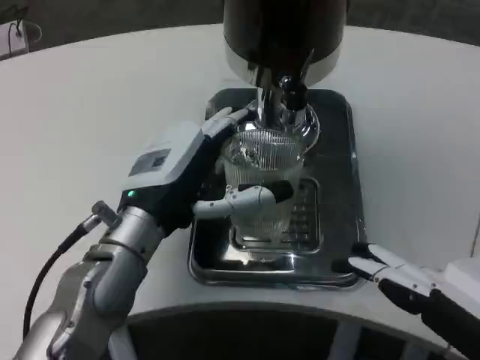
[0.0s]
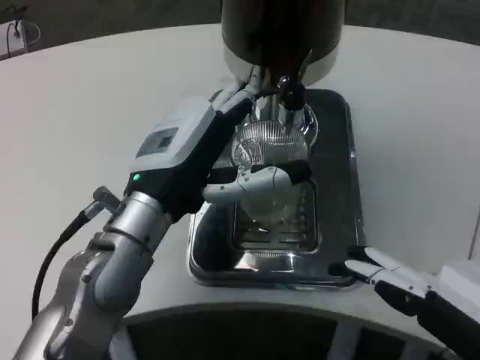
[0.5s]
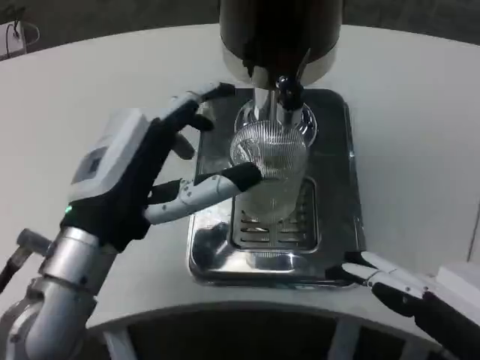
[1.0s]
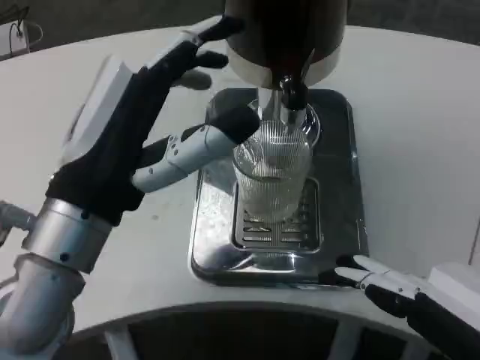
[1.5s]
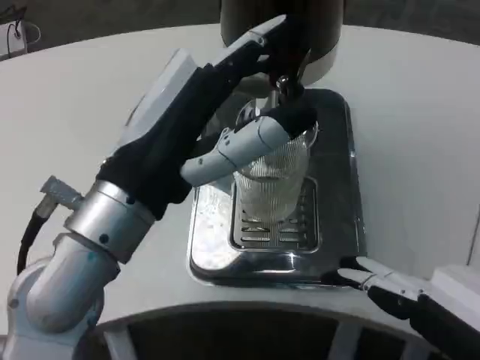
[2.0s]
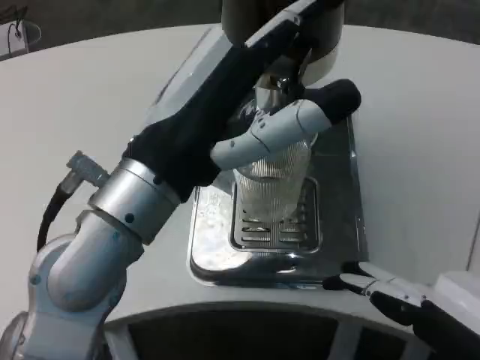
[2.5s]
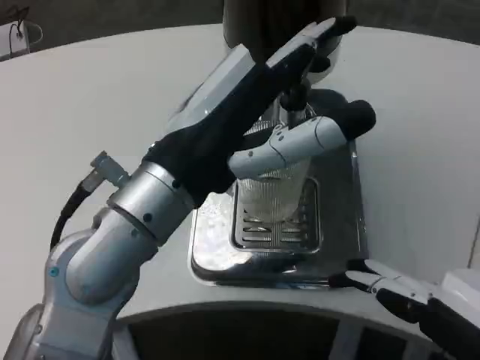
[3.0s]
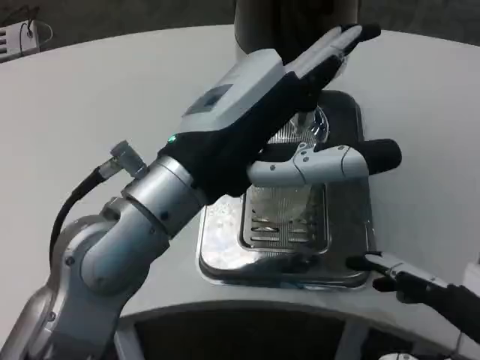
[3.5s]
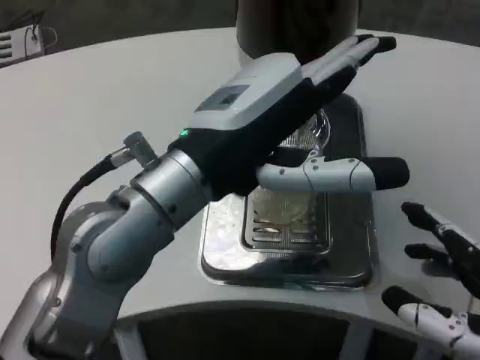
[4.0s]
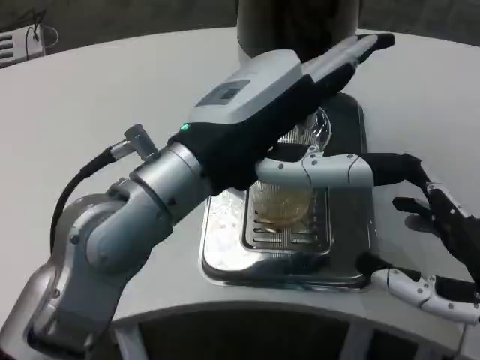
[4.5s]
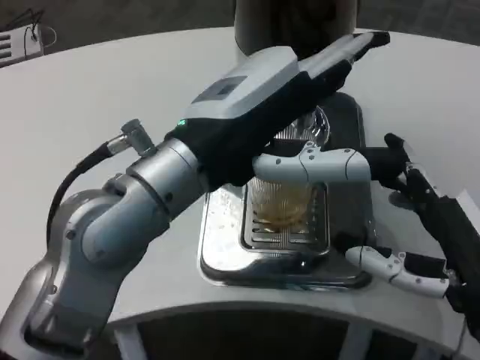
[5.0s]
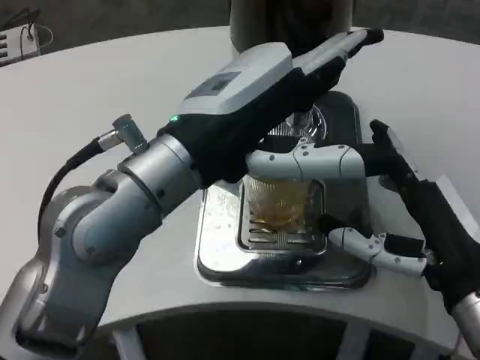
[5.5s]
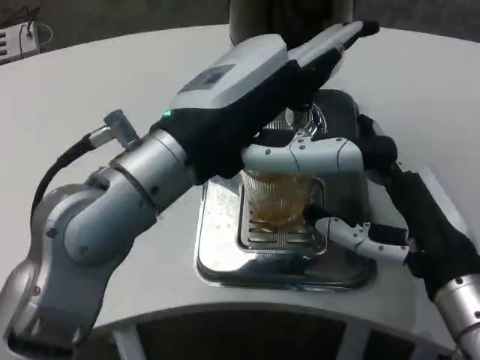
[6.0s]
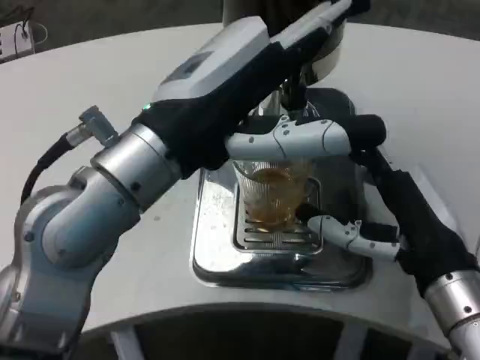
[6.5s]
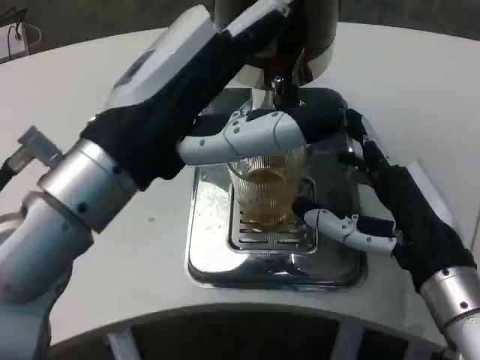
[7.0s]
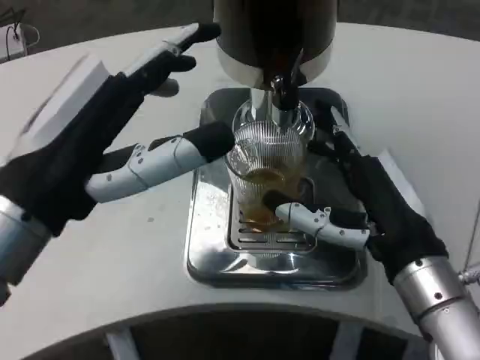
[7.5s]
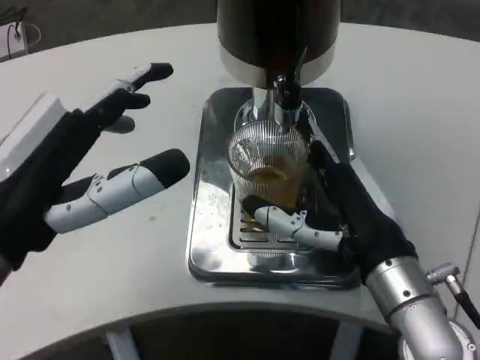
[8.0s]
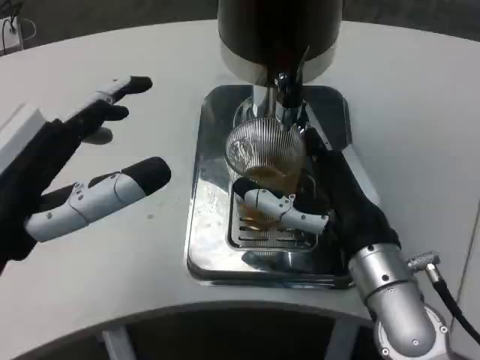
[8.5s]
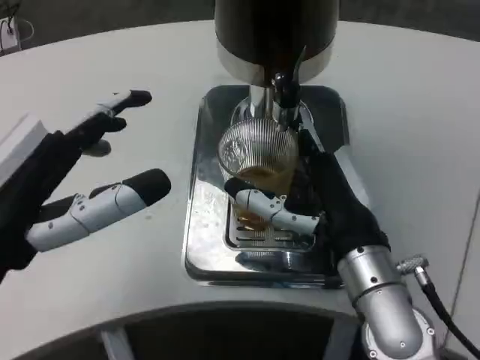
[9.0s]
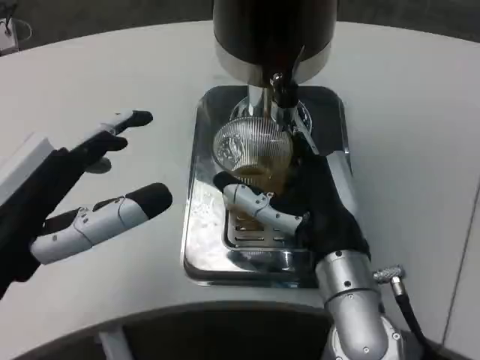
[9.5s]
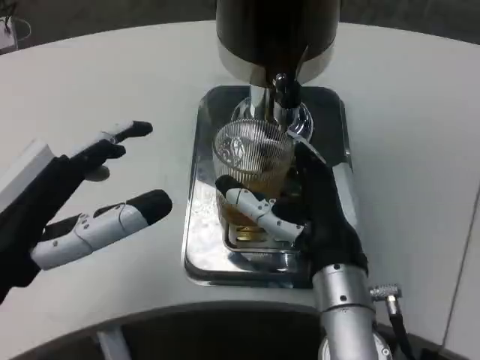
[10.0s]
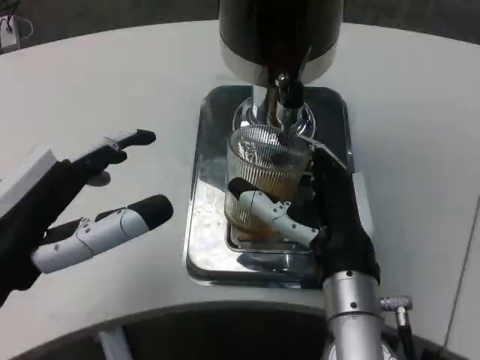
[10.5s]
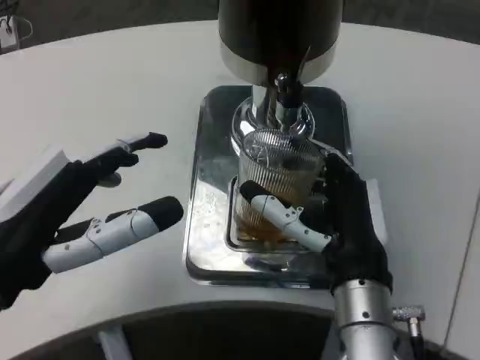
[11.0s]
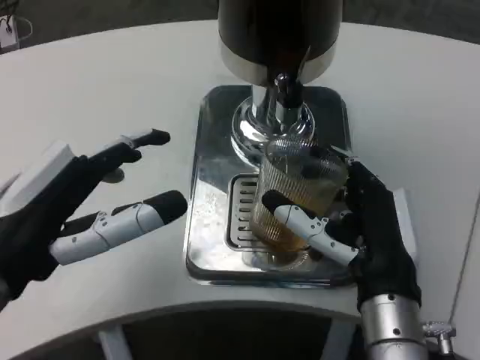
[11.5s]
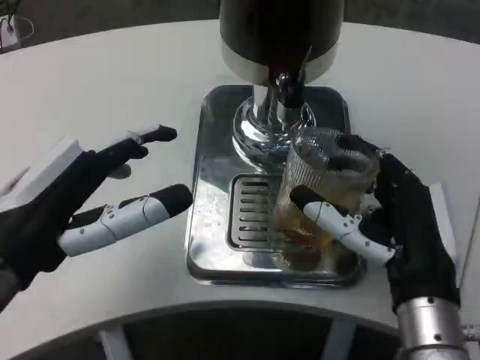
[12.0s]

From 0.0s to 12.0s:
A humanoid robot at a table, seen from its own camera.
Task of the whole recording: Grasp the cup under the faucet to collect the drink, then remove the cup.
From 0.0s to 2.0s: The left hand moves backward and upward, some 10 cm.
From 2.0s to 4.0s: The right hand ends up some 5 cm from where it was.
From 4.0s to 6.0s: The right hand moves forward and to the left, approximately 10 cm.
From 6.0s to 8.0s: The right hand changes place by about 5 cm. The left hand goes about 10 cm to the left and backward.
From 8.0s to 10.0s: The right hand heads to the left, covering approximately 5 cm.
From 10.0s to 12.0s: The right hand goes approximately 5 cm to the right.

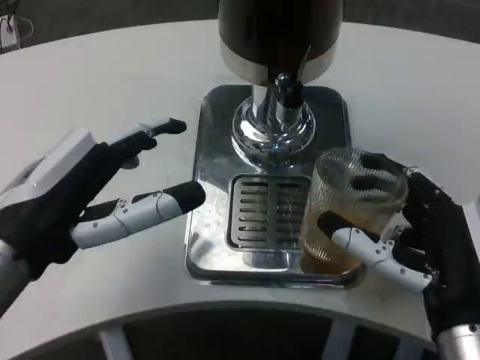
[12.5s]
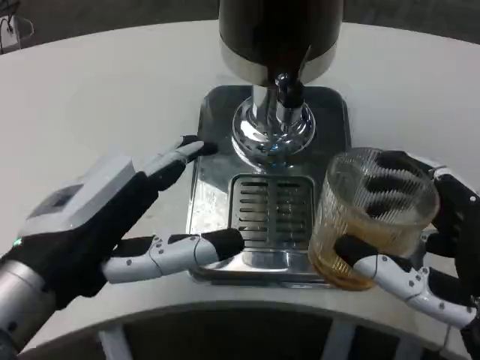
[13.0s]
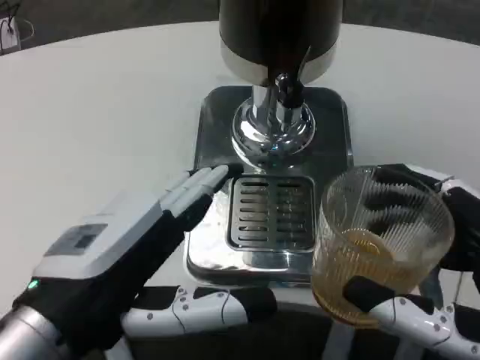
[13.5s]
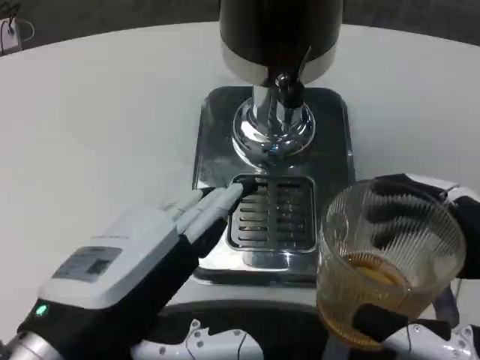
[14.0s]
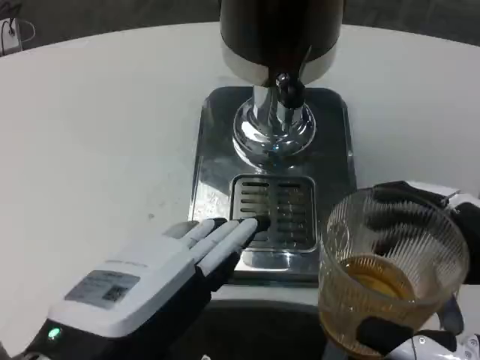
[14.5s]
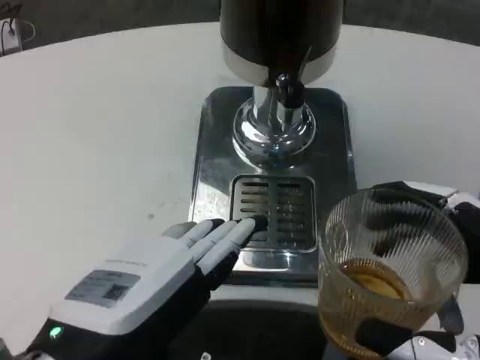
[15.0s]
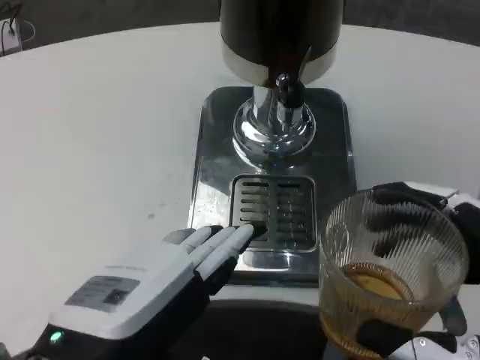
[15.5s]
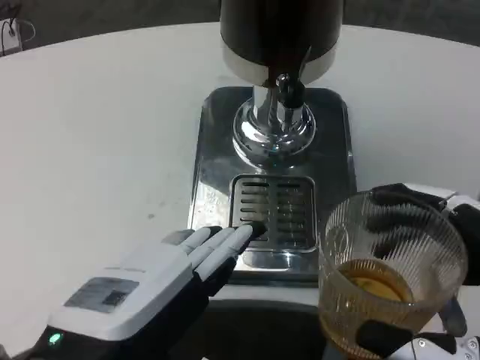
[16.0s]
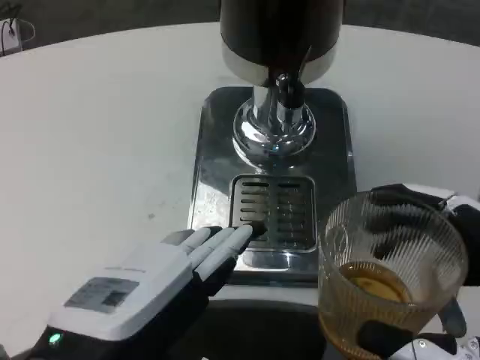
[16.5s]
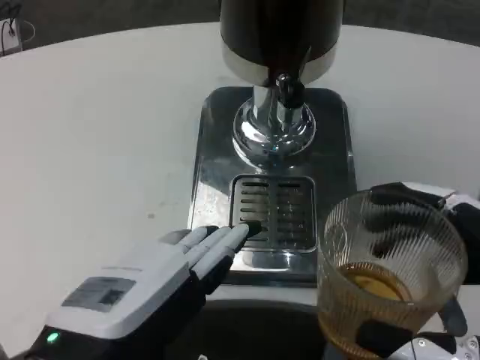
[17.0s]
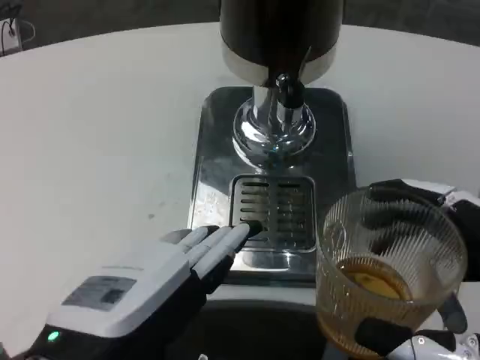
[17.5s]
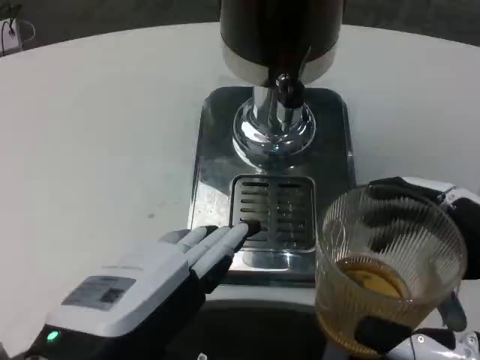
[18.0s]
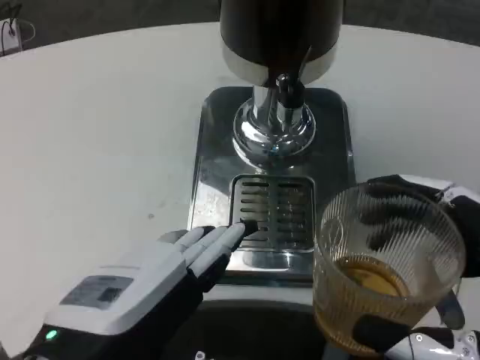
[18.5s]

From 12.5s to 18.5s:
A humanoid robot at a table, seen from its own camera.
Task of the whole recording: Grasp the cup under the faucet to collect the drink, then remove the cup.
From 12.5s to 14.5s: The right hand goes about 10 cm backward and to the right; the left hand is displaced backward by about 5 cm.
From 14.5s to 18.5s: Neither hand changes place.

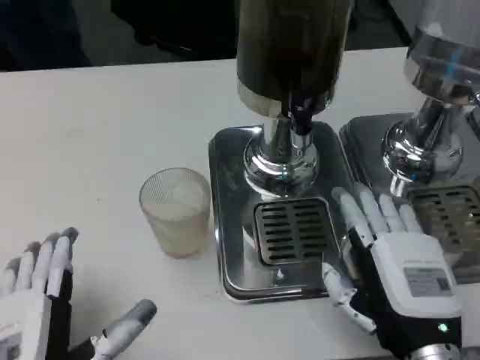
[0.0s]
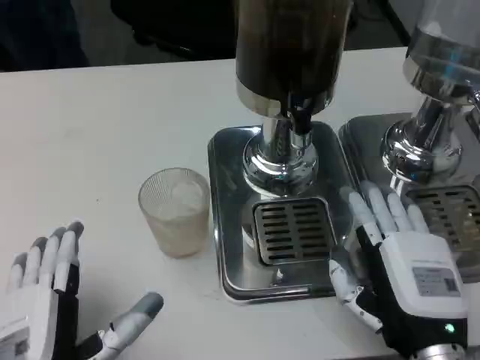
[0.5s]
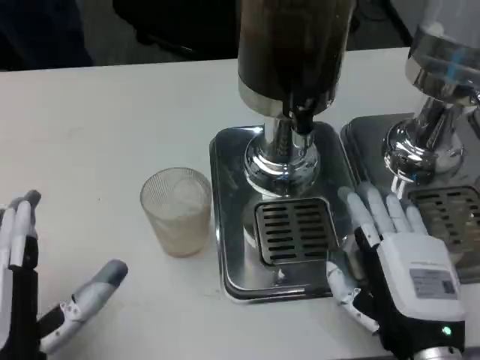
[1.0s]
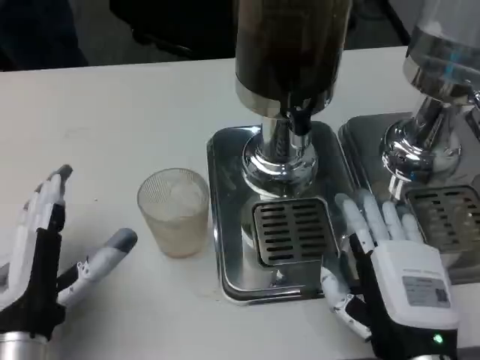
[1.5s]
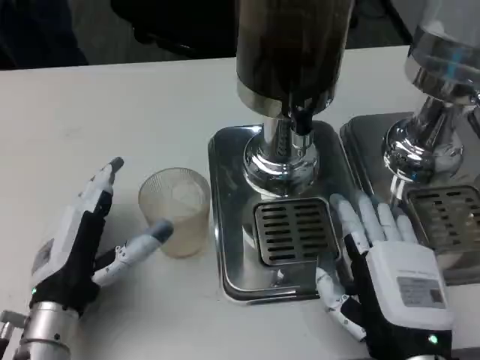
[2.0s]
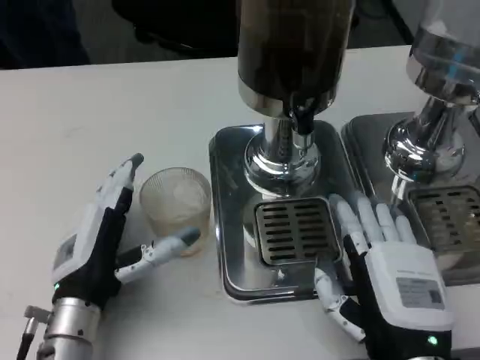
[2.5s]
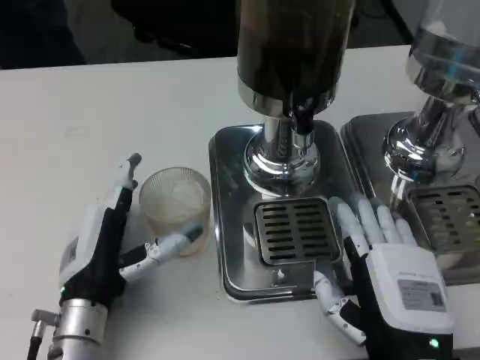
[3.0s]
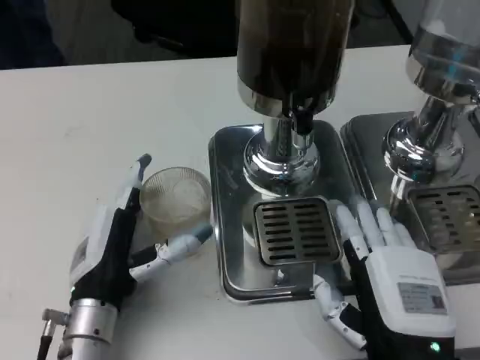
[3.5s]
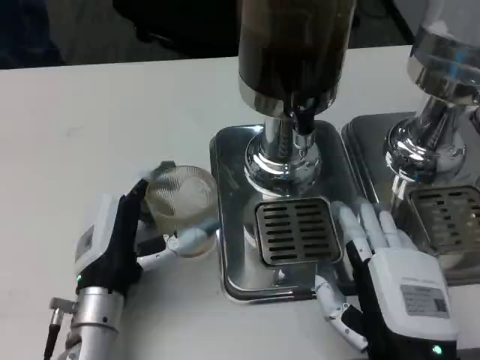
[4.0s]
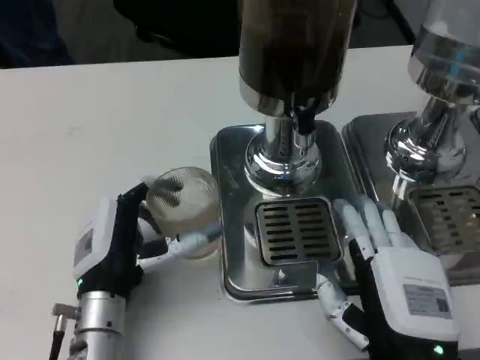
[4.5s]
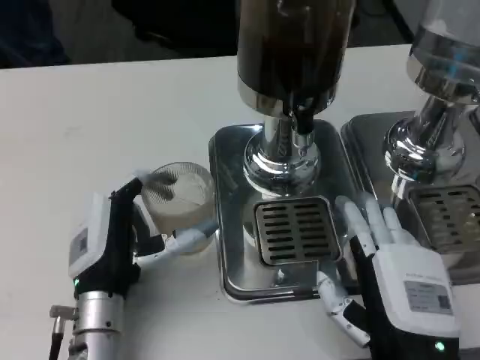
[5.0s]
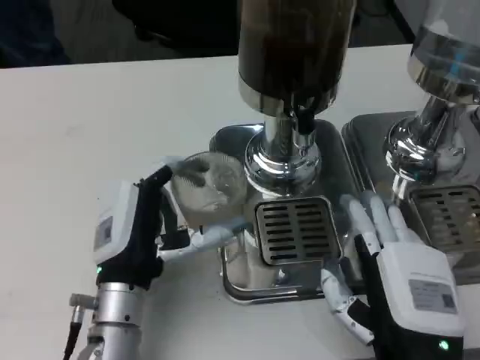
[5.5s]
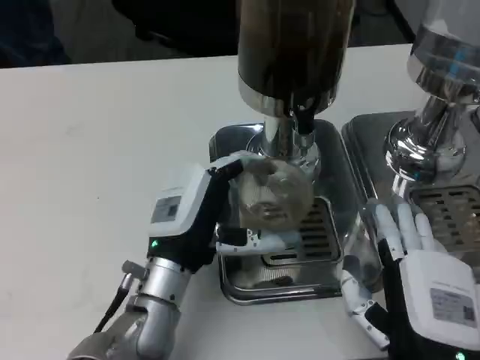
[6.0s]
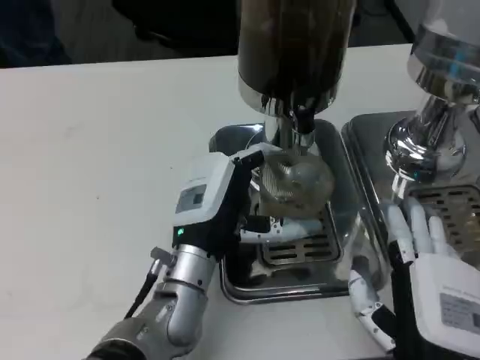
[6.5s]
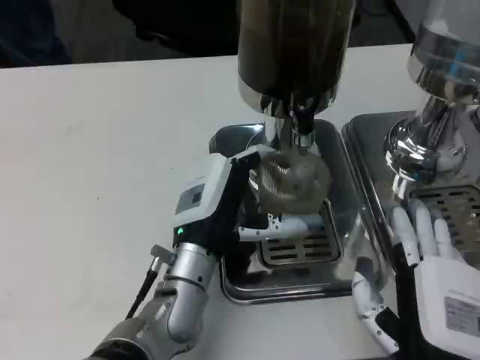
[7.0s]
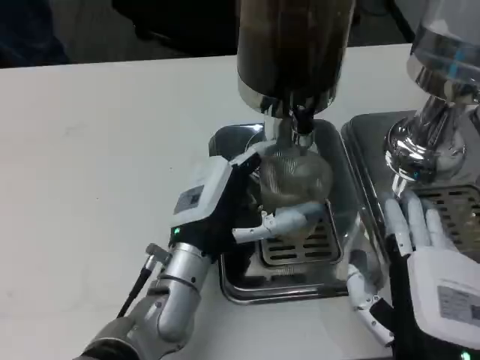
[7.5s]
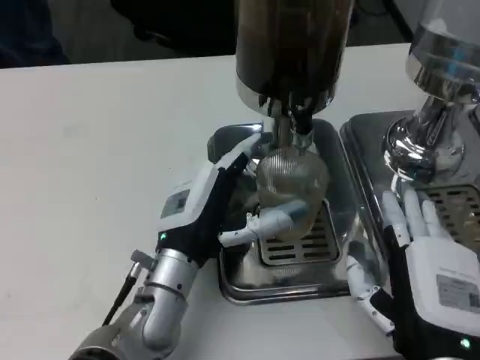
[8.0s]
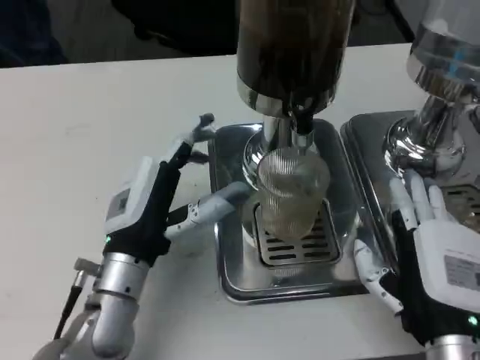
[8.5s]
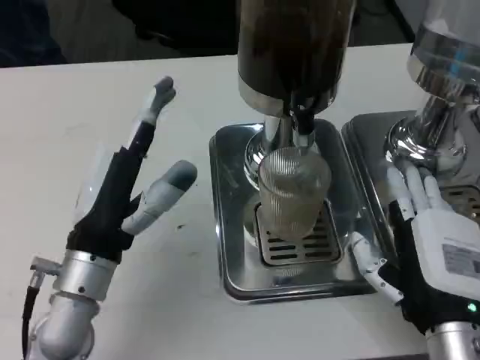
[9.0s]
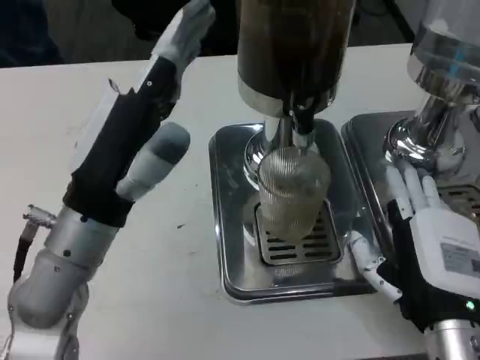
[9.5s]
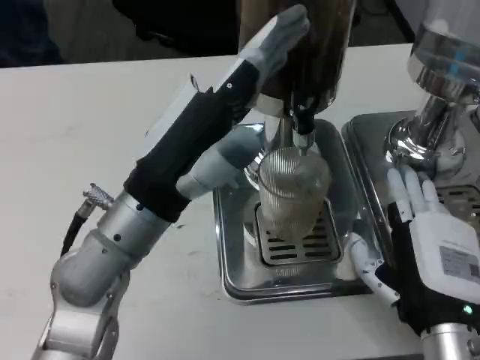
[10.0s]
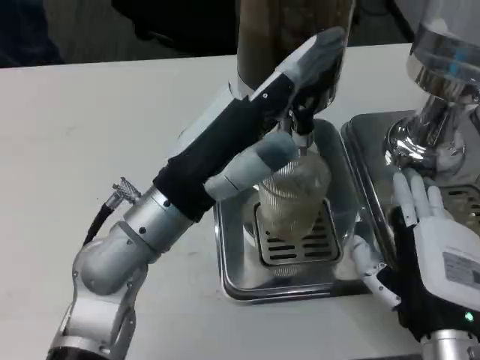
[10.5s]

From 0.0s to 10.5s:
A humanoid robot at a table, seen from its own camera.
Task of the whole recording: Grasp the cup under the faucet to collect the drink, then remove the cup.
From 0.0s to 2.0s: The left hand moves forward, roughly 10 cm.
From 2.0s to 4.0s: The left hand moves approximately 5 cm.
From 4.0s to 6.5s: The left hand shifts approximately 10 cm to the right.
From 6.5s to 8.5s: The left hand moves to the left, about 5 cm.
From 8.5s to 10.5s: The left hand shifts approximately 10 cm upward.
